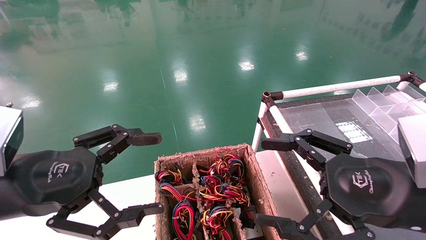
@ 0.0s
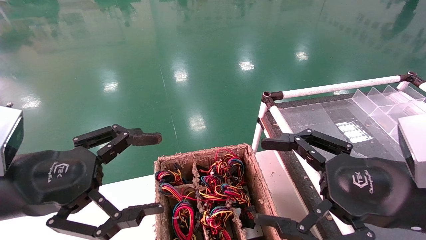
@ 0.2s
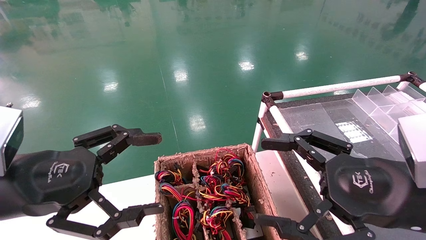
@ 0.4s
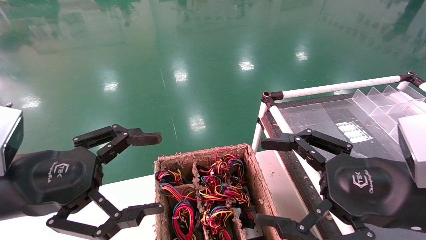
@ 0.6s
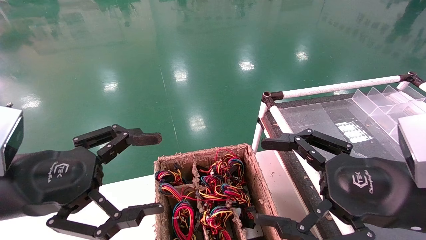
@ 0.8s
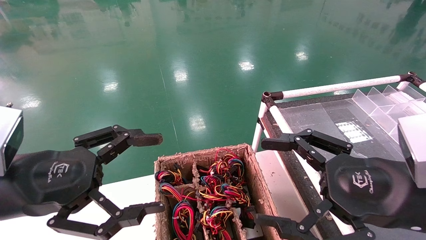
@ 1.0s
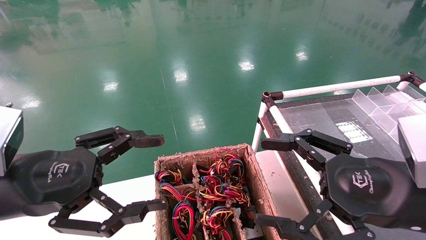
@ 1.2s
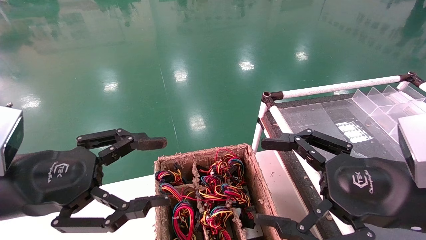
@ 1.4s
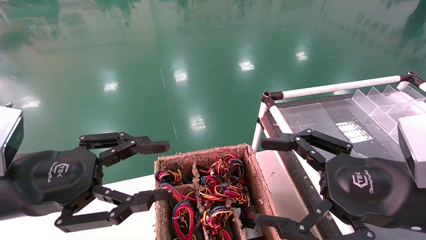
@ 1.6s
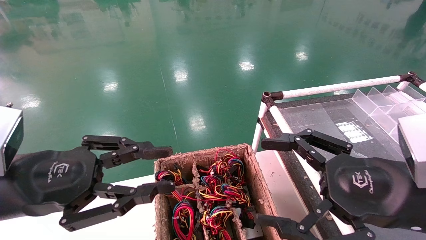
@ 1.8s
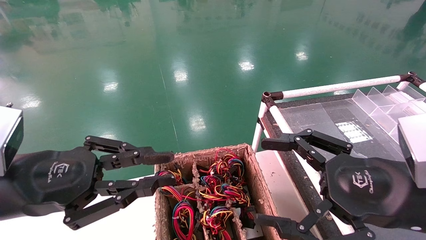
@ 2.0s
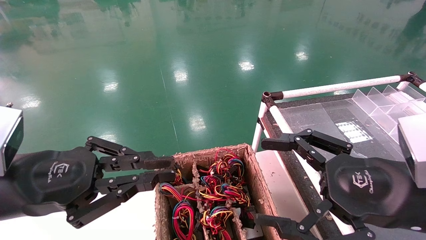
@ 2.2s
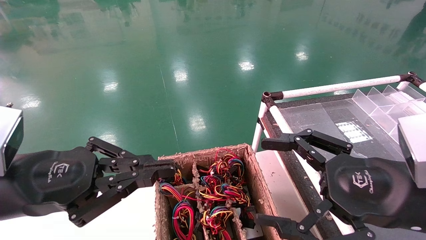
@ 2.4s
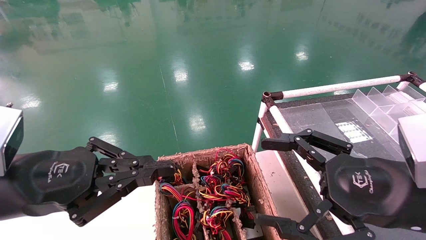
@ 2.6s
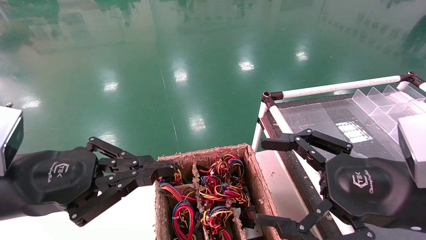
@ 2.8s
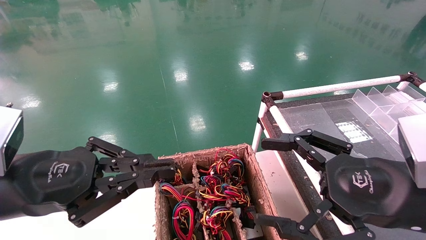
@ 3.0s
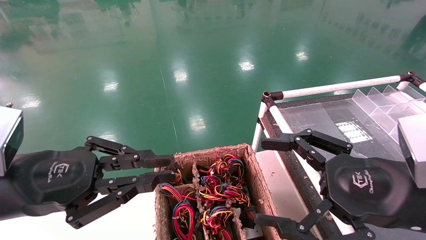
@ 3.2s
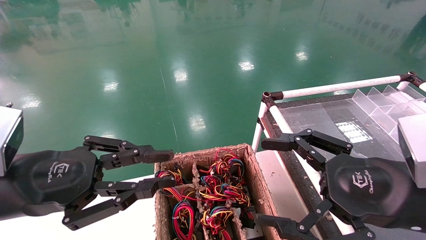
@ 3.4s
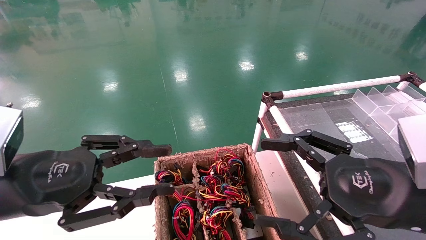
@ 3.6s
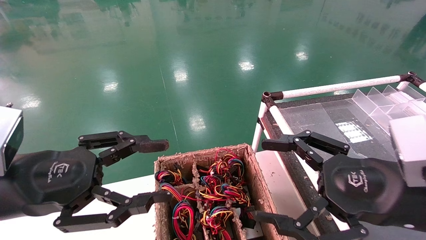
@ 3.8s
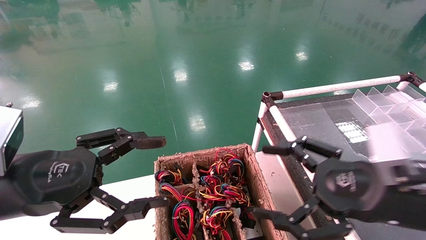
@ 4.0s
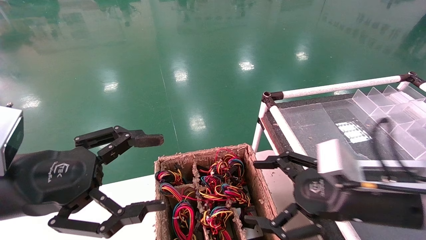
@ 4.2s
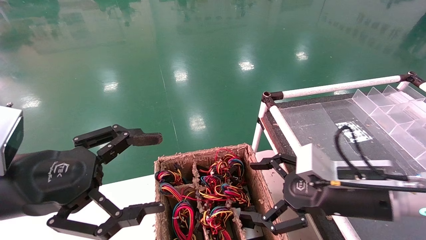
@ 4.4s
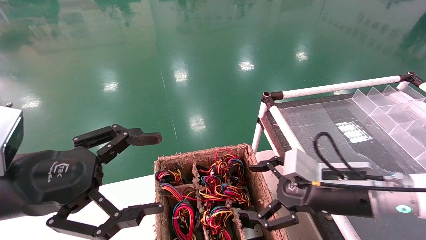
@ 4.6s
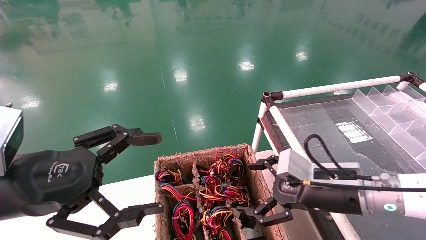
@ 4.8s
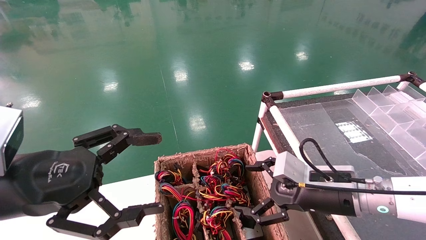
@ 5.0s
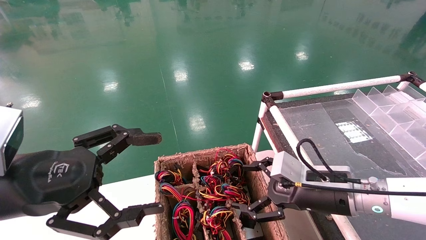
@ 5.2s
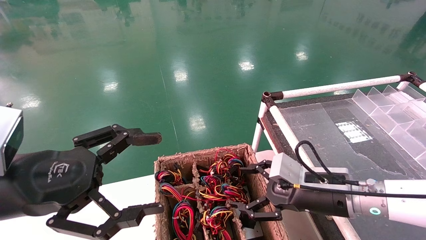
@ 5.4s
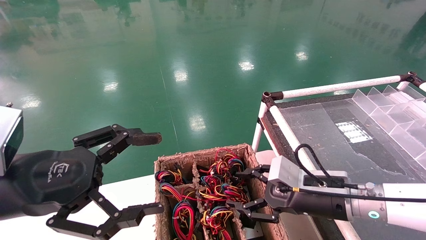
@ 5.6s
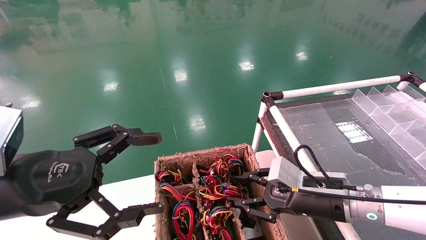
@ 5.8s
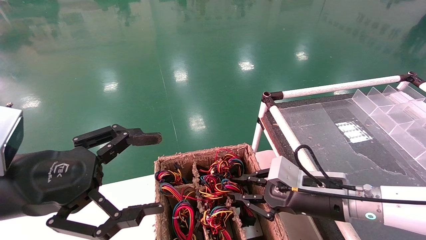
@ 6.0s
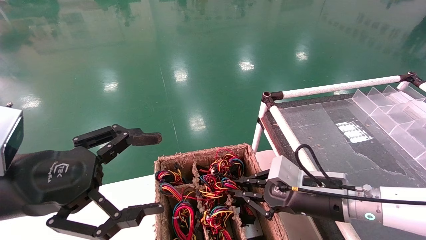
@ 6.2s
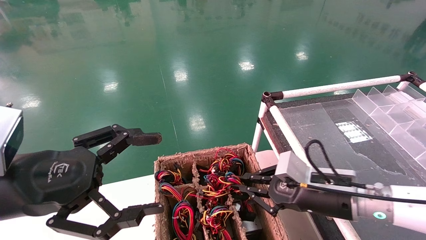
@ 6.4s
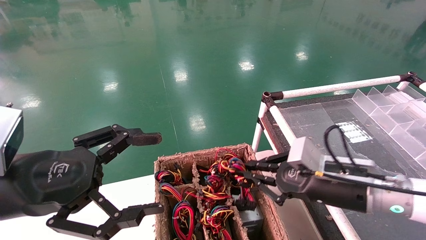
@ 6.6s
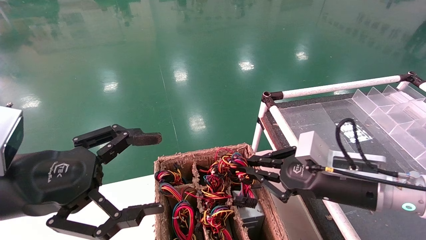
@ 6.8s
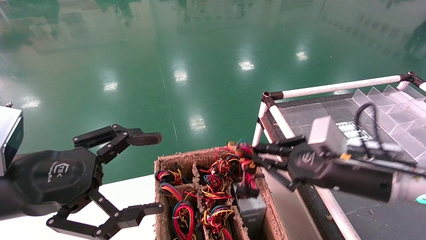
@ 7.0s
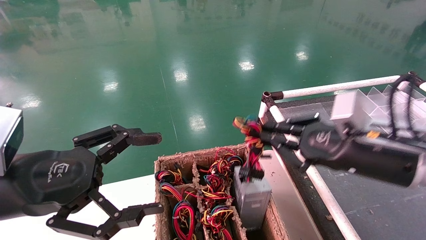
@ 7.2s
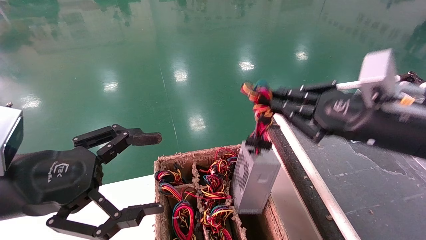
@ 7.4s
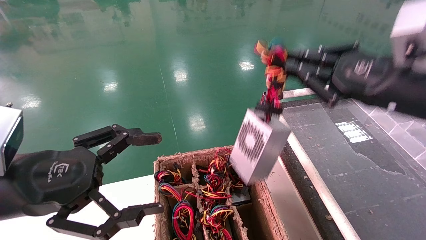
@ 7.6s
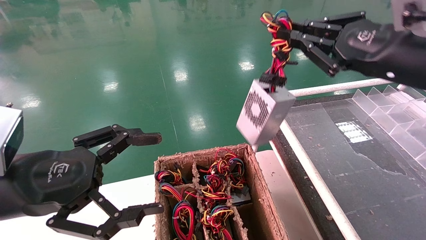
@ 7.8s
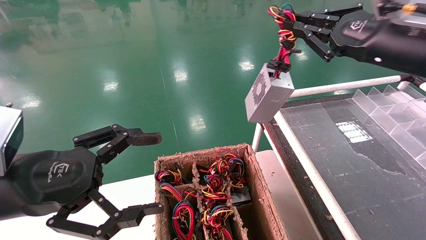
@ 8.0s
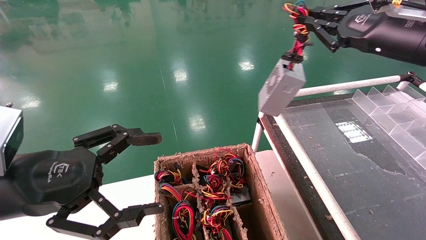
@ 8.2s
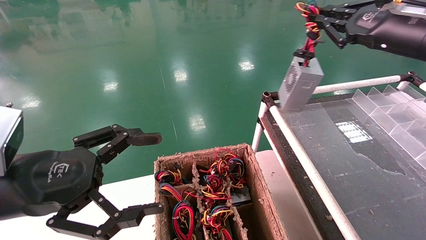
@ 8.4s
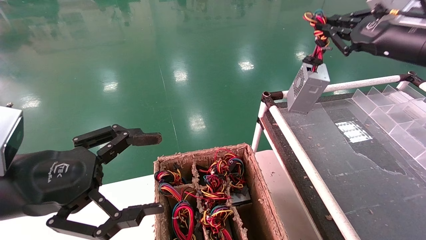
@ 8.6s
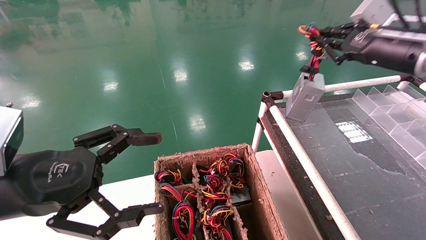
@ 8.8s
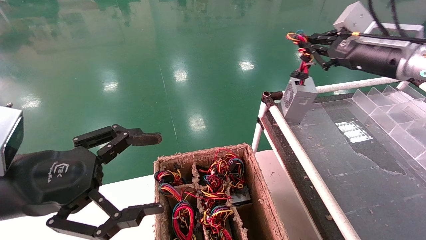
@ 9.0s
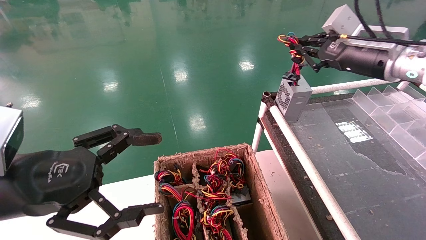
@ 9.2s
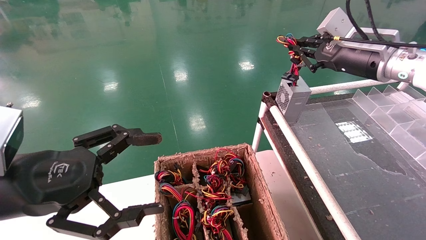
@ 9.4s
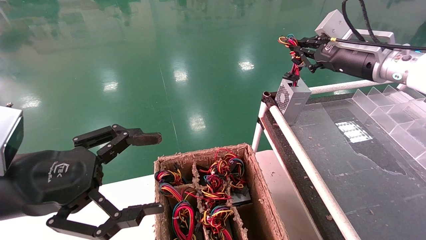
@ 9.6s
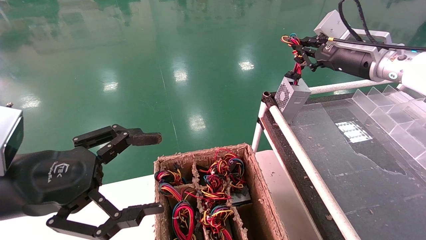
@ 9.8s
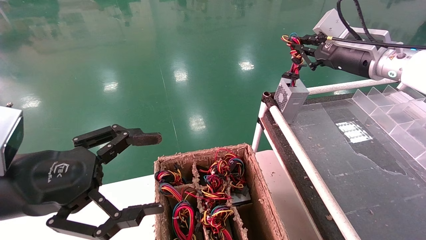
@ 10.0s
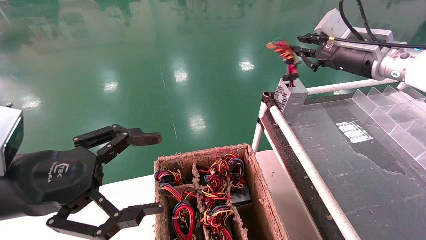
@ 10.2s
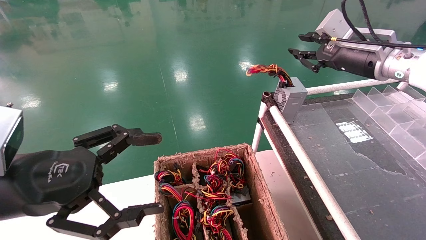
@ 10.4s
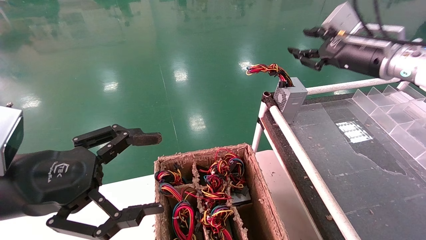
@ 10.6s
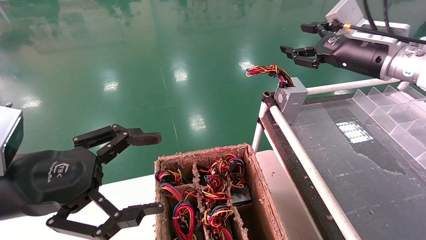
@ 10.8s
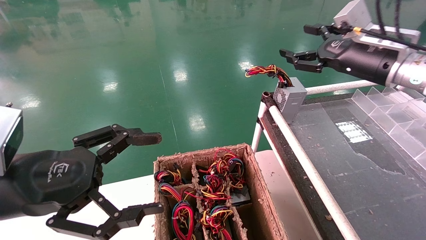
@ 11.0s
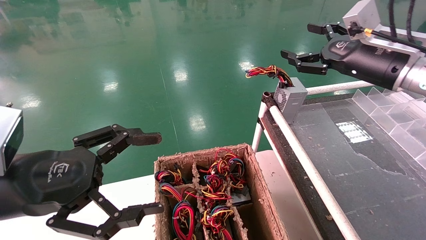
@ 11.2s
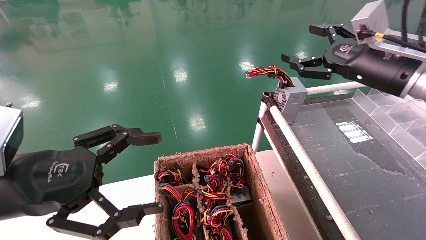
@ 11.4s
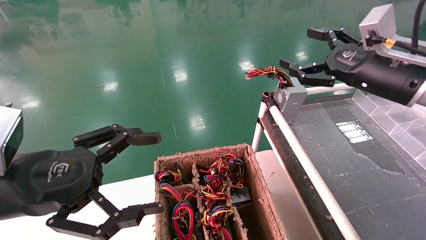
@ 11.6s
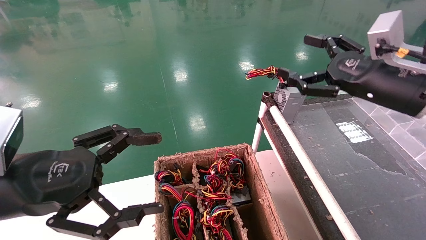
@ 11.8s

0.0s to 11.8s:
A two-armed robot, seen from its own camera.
Step, 2.4s to 6.4s: Grab and lift the power supply from the large box.
Step, 6.6s to 10.2s: Place the power supply on the operating table.
0.0s to 1.4s: Neither gripper changes place.
1.4s to 3.0s: The left gripper closes.
3.0s to 4.4s: The left gripper opens up. The right gripper heads forward and downward, covering some 10 cm.
4.4s to 6.0s: The right gripper moves downward, some 5 cm, and closes.
6.0s to 7.4s: The right gripper moves upward, some 15 cm.
7.4s to 8.8s: The right gripper goes approximately 15 cm forward, upward and to the right.
8.8s to 10.4s: The grippers move only a little.
10.4s to 11.8s: The right gripper moves backward, roughly 10 cm, and opens.

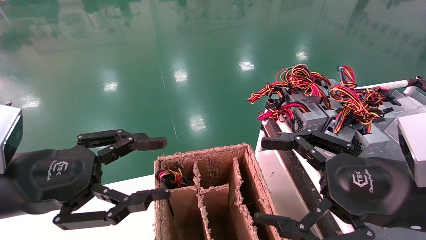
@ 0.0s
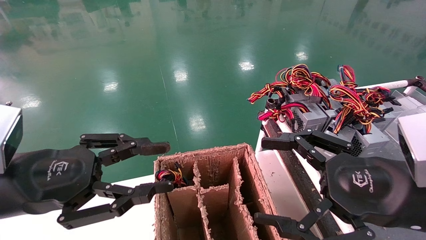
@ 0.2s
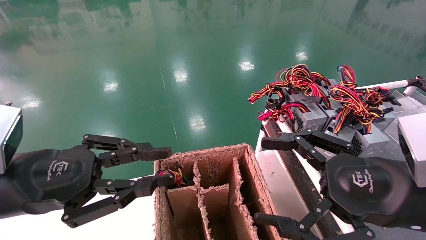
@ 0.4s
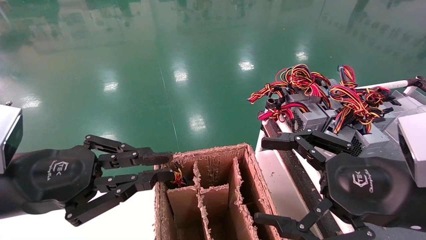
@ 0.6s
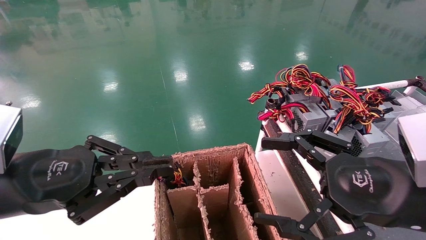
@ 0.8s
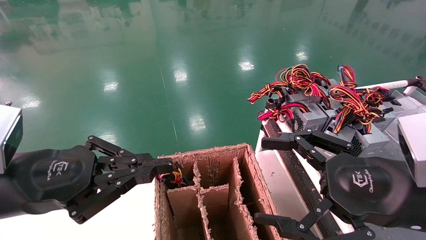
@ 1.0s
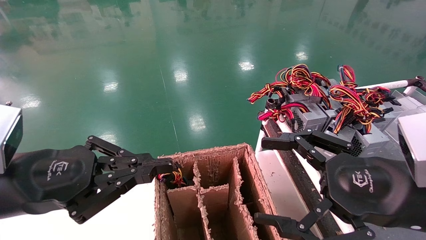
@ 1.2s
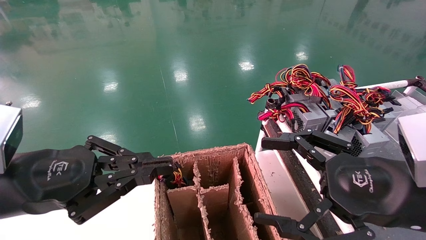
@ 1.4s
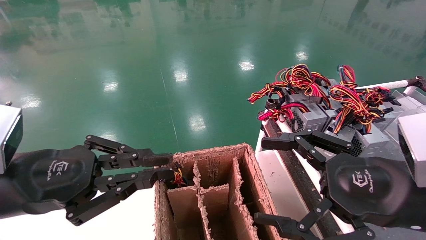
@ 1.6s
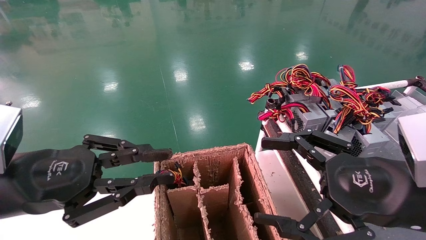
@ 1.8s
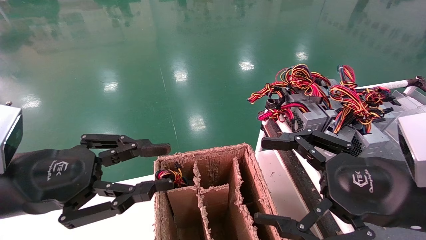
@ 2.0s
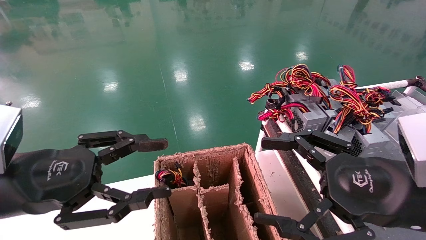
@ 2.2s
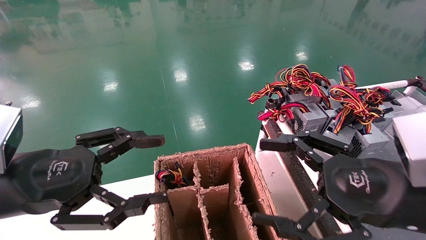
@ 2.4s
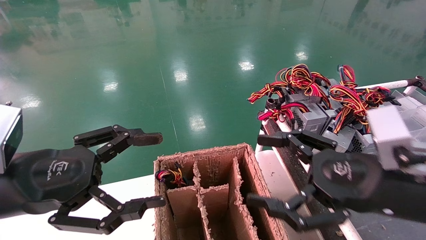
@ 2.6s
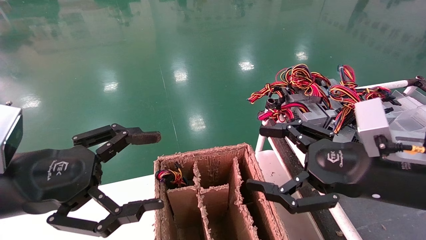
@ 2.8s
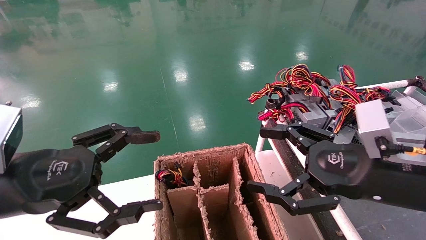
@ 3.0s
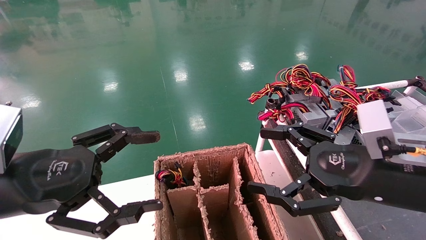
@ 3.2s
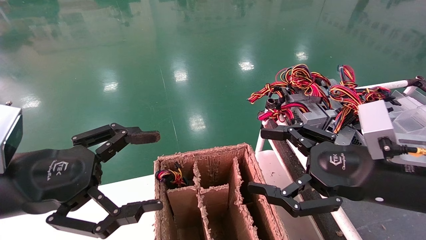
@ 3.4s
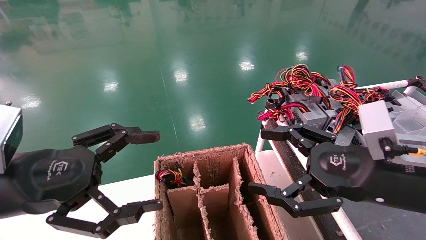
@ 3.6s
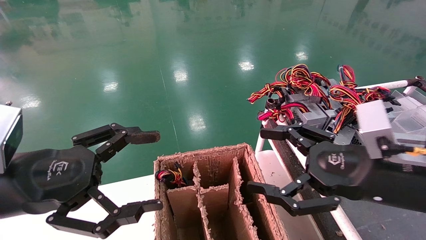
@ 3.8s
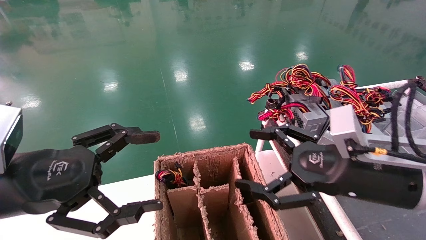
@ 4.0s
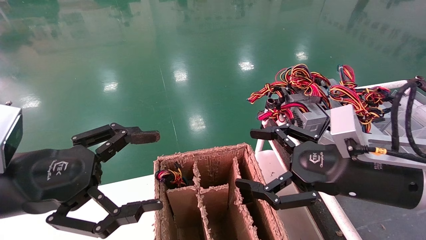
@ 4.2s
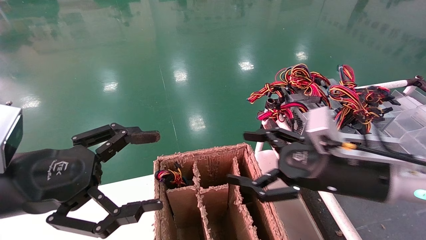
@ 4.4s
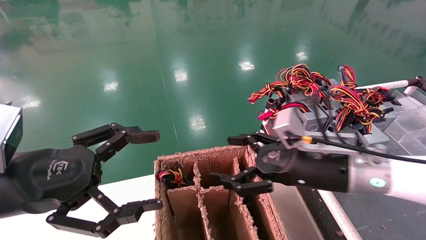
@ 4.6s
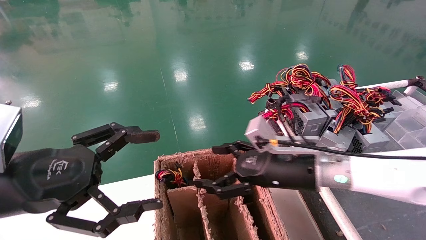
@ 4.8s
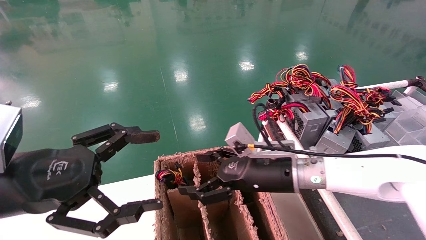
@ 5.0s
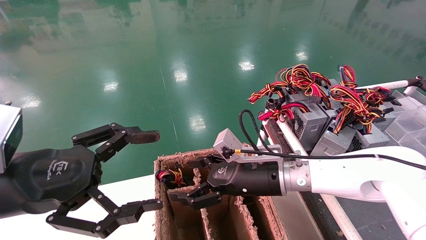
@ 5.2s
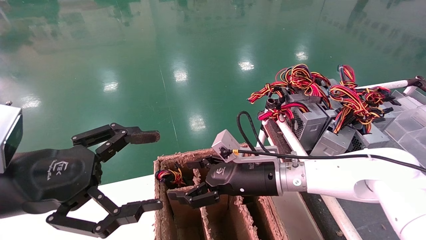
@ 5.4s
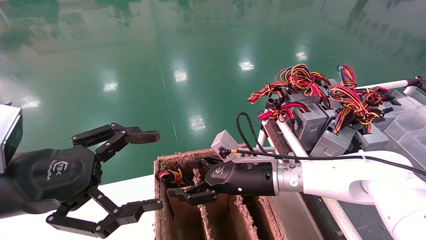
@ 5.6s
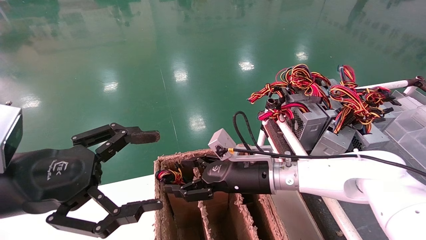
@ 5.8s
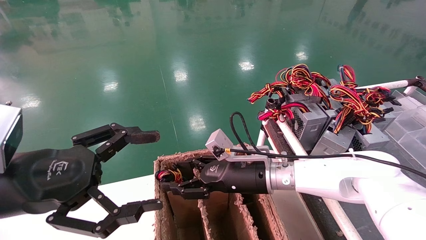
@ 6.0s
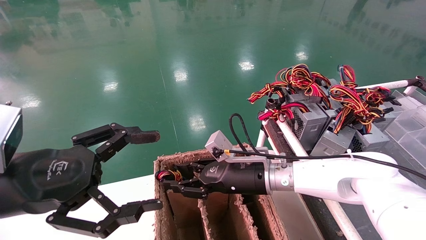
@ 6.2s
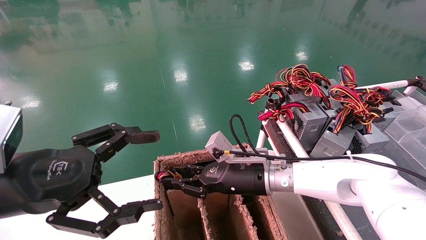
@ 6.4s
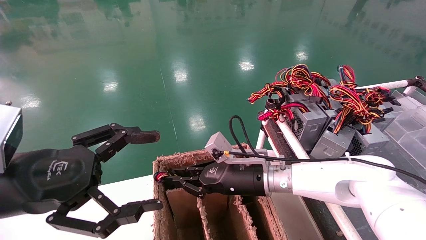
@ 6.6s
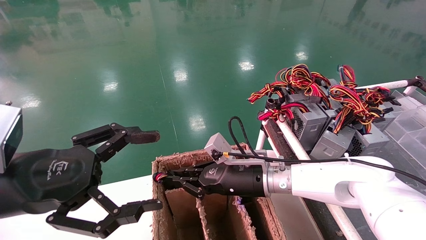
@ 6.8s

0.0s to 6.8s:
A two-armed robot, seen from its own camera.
Step, 1.0s to 6.4s: Grab and lift the power supply from the large box.
0.0s to 1.4s: The left gripper closes up.
1.4s to 2.8s: The left gripper opens up.
2.8s to 4.0s: The grippers move only a little.
4.0s to 5.4s: The right gripper moves to the left, forward and downward, about 20 cm.
5.4s to 6.8s: The right gripper closes.
